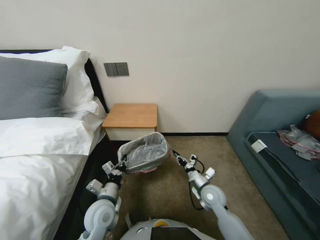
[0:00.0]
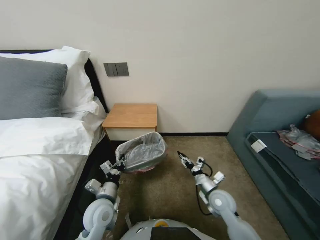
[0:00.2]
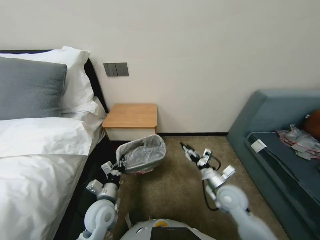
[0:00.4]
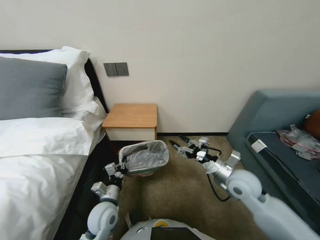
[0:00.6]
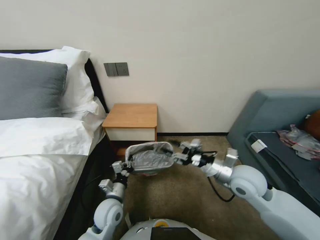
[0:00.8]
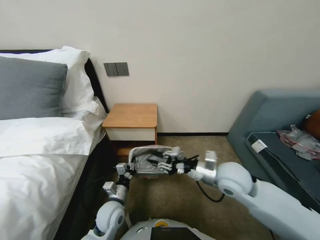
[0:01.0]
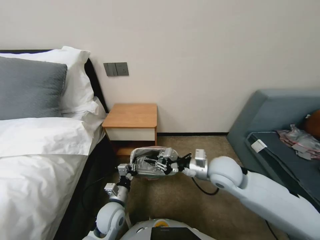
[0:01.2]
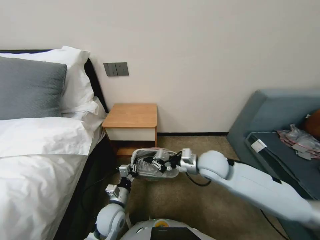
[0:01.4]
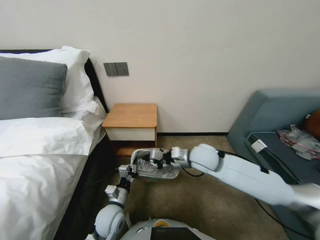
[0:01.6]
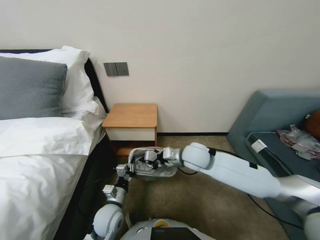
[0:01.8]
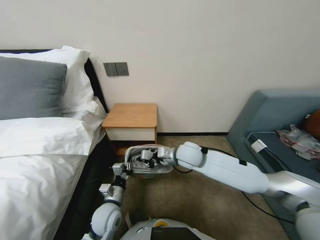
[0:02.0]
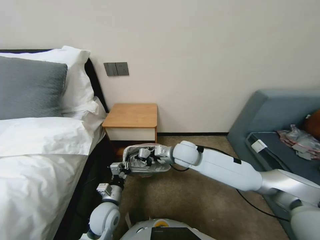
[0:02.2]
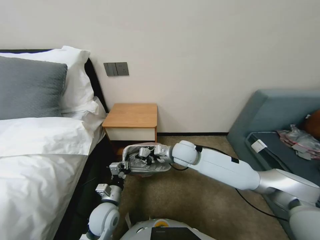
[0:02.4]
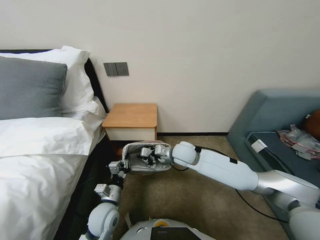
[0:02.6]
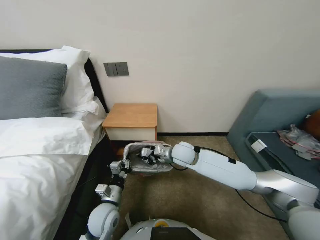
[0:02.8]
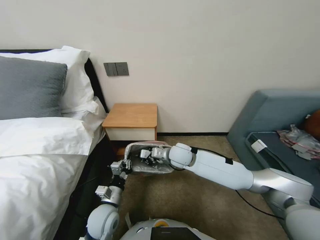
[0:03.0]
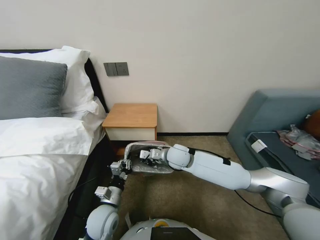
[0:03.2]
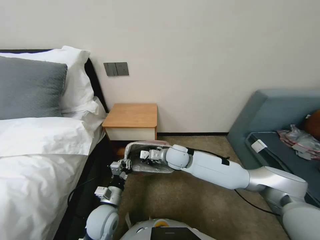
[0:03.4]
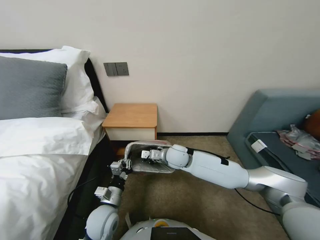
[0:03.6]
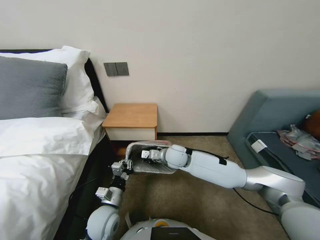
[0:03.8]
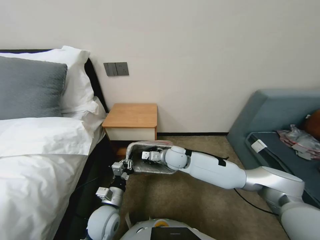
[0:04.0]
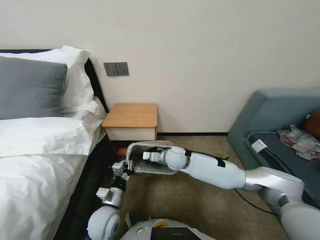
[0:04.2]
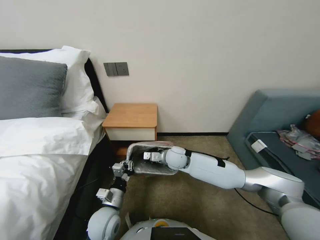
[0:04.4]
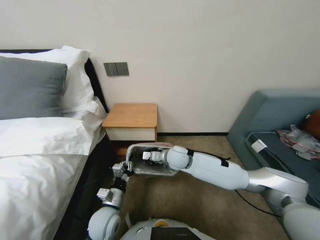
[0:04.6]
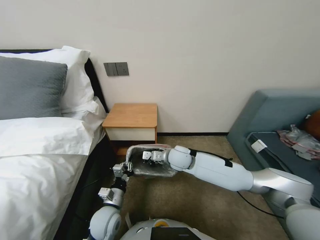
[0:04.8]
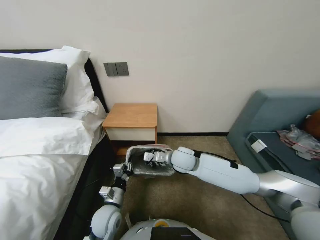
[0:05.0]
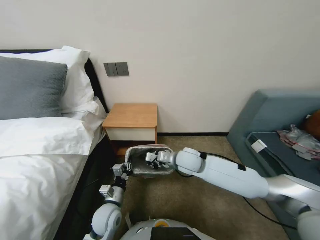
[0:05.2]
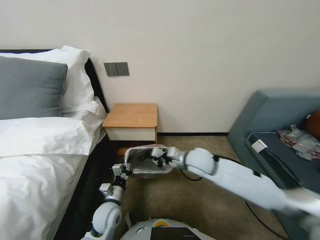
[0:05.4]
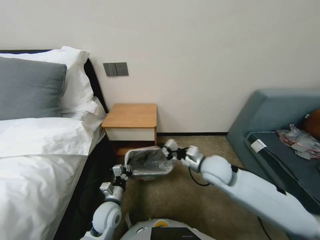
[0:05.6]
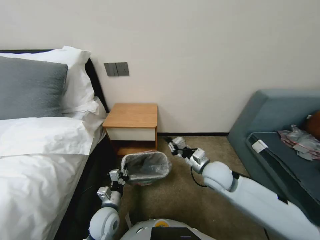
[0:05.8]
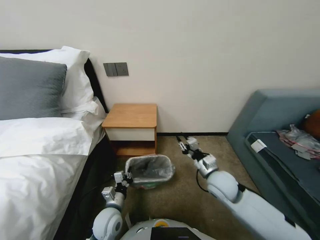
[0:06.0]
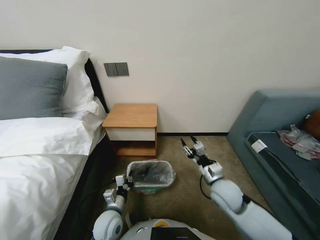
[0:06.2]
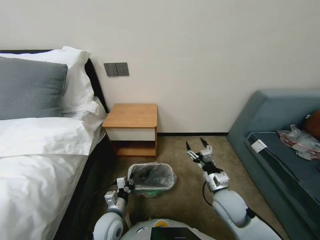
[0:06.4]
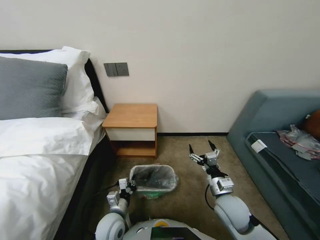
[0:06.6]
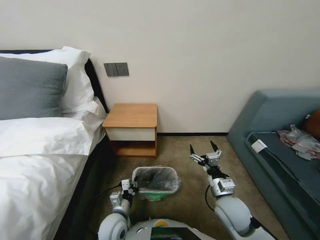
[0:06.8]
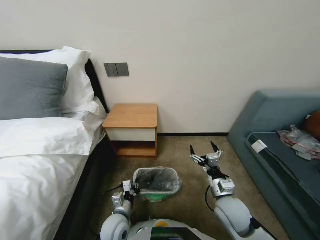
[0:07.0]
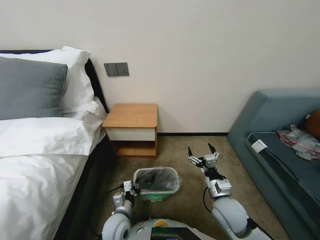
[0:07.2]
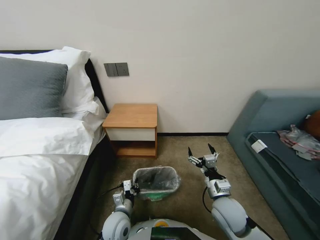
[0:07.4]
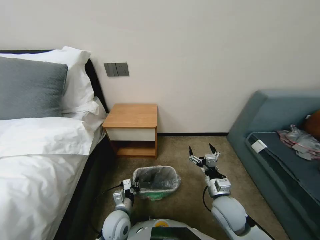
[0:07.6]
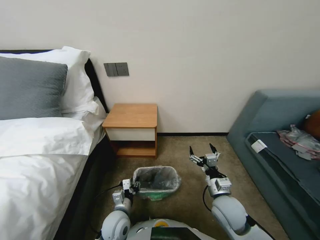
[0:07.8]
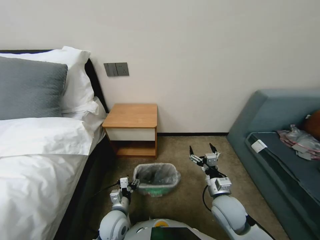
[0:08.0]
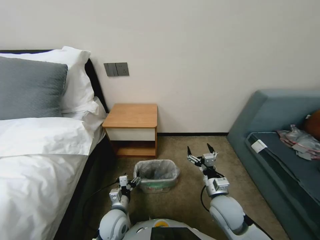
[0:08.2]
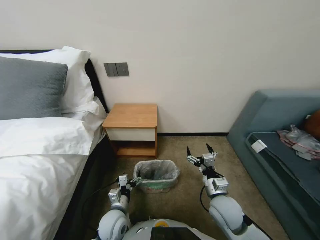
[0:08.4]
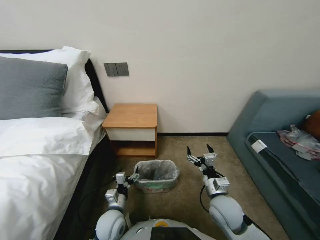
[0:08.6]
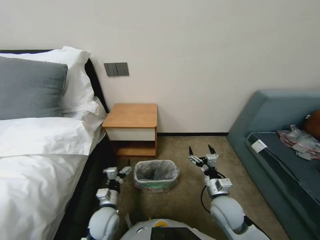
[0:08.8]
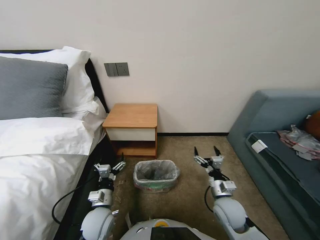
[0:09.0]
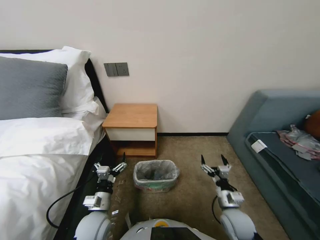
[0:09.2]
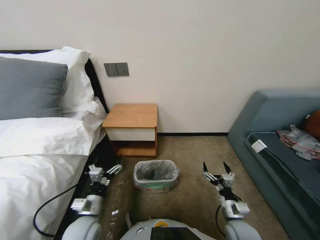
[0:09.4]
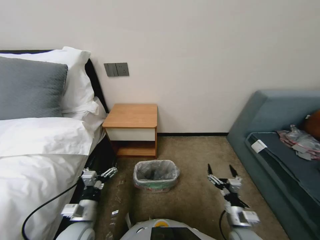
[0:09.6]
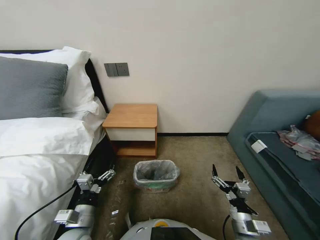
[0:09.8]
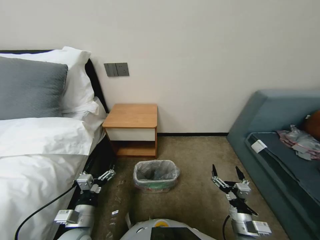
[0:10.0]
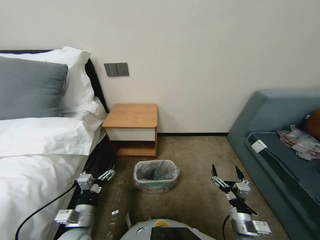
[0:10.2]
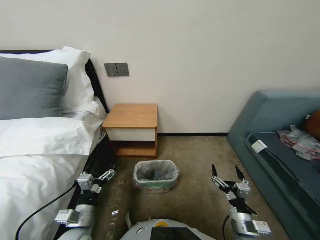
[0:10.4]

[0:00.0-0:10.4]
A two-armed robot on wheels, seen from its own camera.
Task of the whole recording: Pick up the garbage bag from the table and place it over the trash can.
0:00.0 to 0:01.4: The left gripper heads downward, covering some 5 cm. Meanwhile the right gripper is displaced upward by roughly 20 cm, and opens, then closes again.
0:01.4 to 0:03.0: The right gripper travels to the left and forward by some 15 cm.
0:03.0 to 0:04.4: The grippers stay close to where they were, moving slightly.
0:04.4 to 0:06.0: The right gripper is displaced to the right and backward by some 15 cm.
0:06.0 to 0:07.4: The right gripper travels backward and downward by roughly 10 cm, and opens its fingers.
0:07.4 to 0:09.0: The left gripper travels to the left by some 5 cm, and opens up.
0:09.0 to 0:10.4: The right gripper is displaced backward by approximately 10 cm, while the left gripper heads backward and upward, covering approximately 10 cm.
